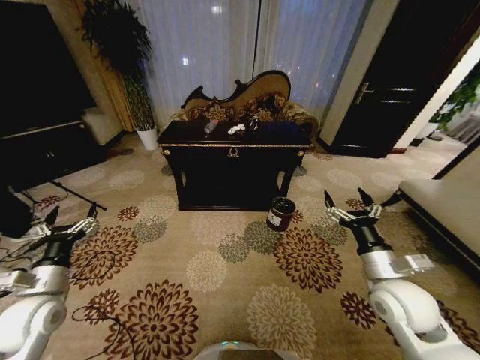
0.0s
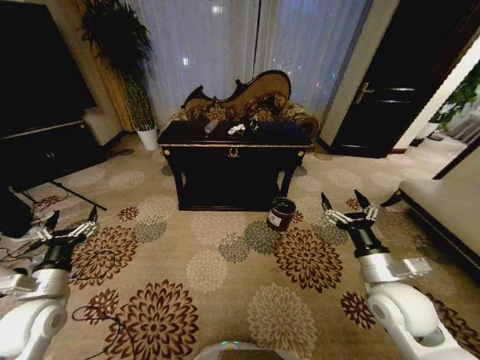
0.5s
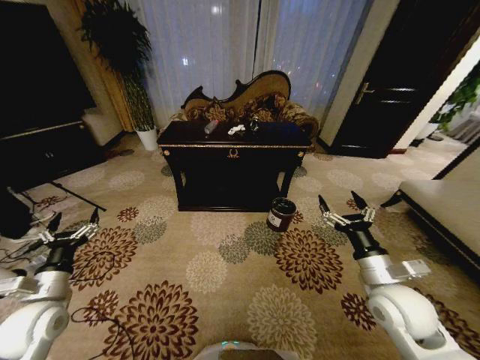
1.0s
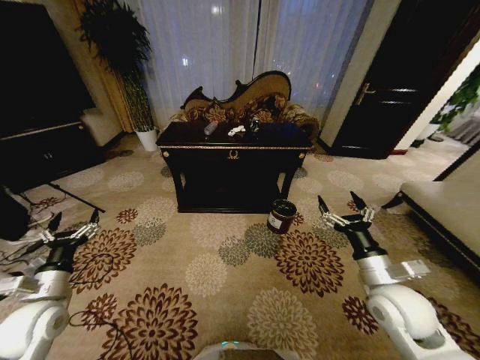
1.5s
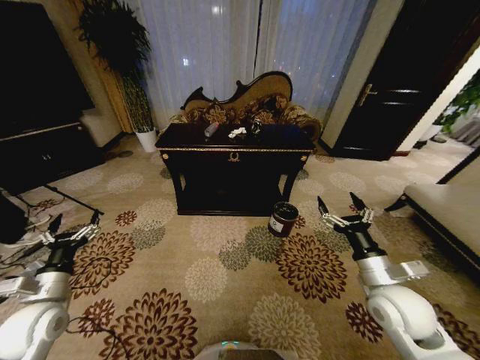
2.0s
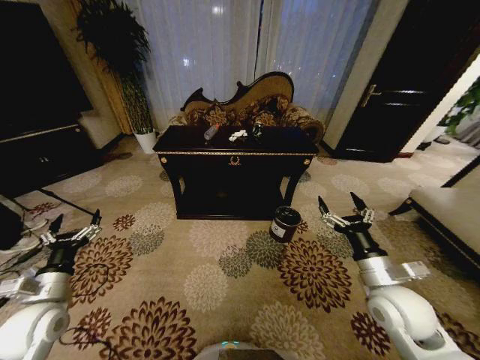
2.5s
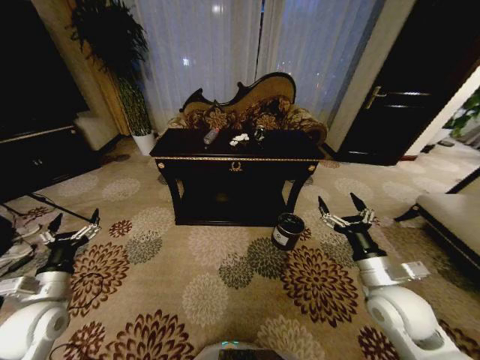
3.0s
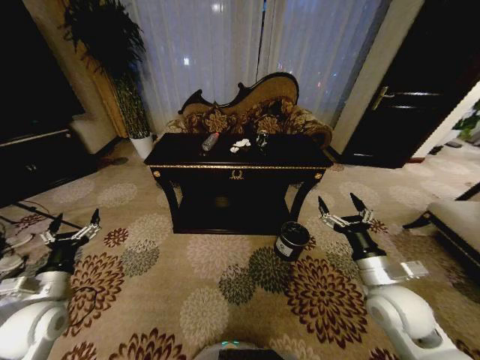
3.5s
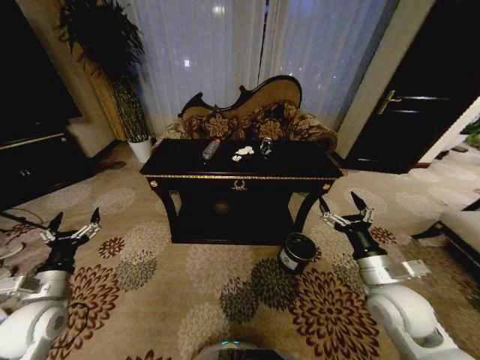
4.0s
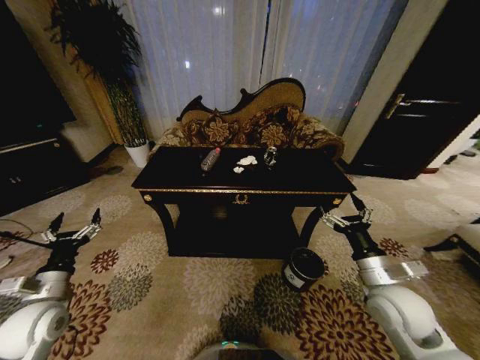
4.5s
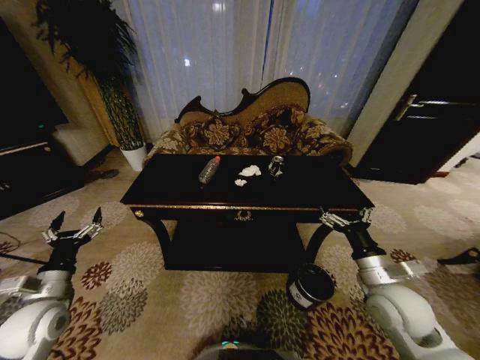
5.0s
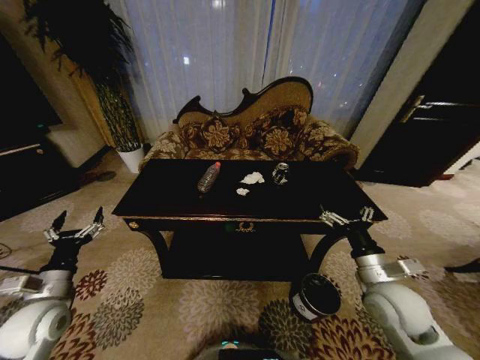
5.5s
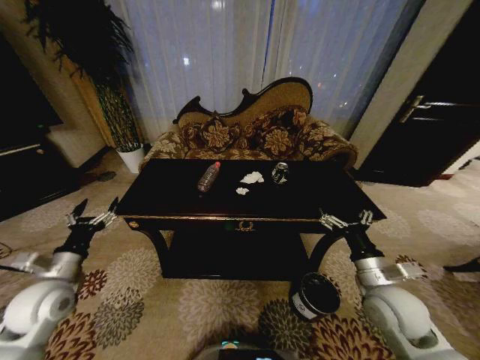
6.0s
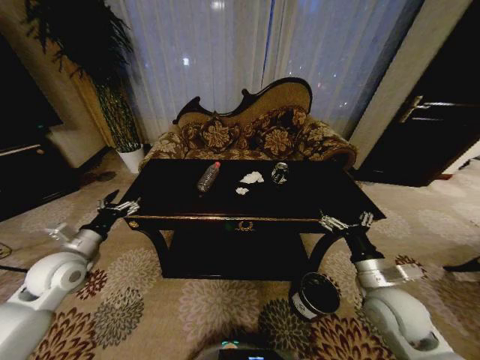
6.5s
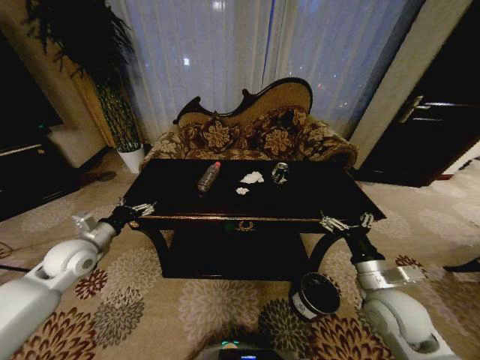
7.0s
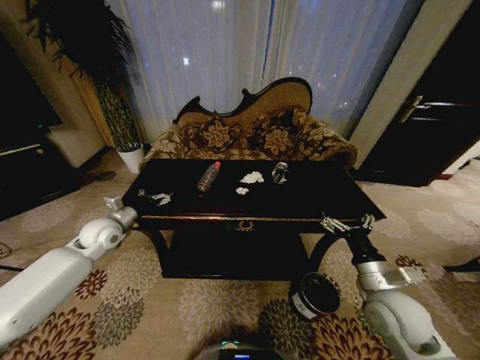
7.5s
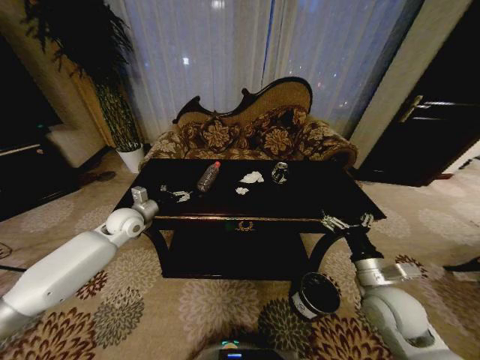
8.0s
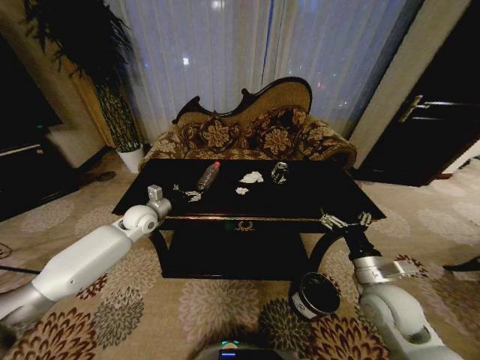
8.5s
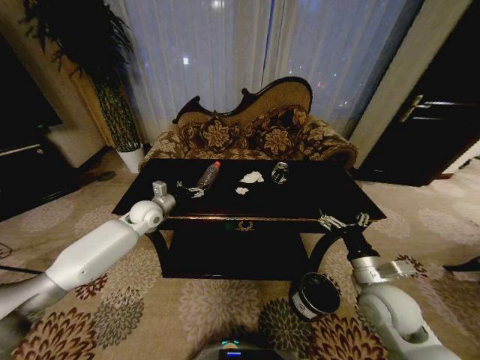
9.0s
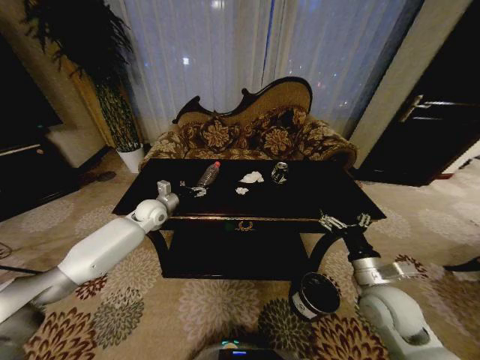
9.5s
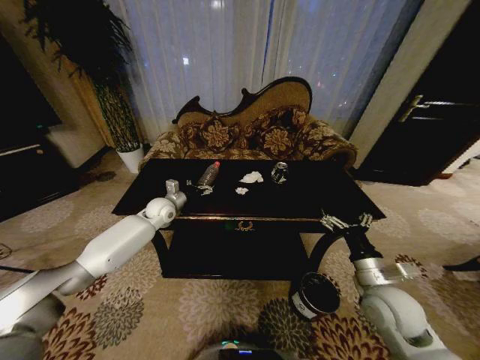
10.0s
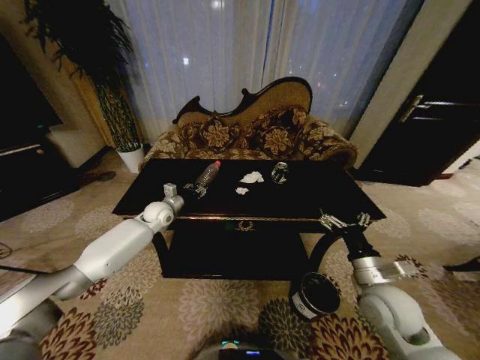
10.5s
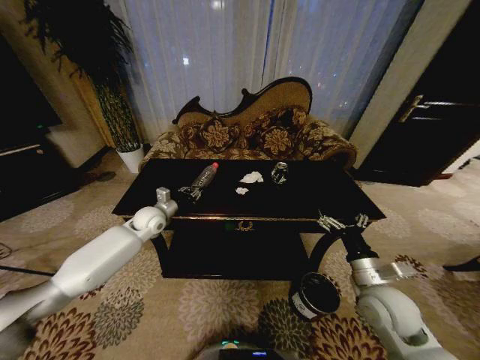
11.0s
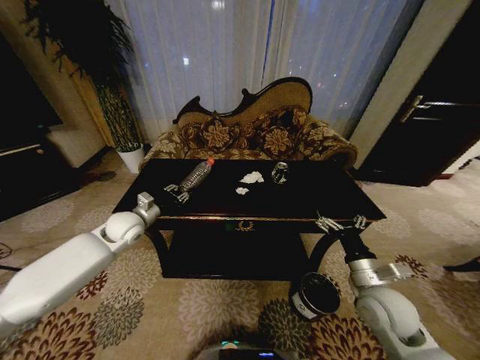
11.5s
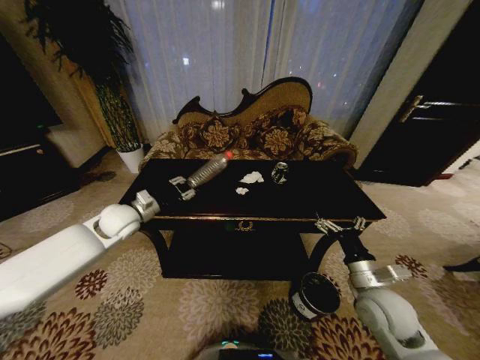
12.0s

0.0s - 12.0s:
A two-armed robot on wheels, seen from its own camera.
Task of the whole recording: Move to the front of the table and place the trash on the table into the trash bin.
6.0s - 8.0s: The left gripper shifts about 20 cm forward and to the right.
8.0s - 10.0s: The left gripper is displaced forward and to the right by approximately 10 cm.
10.0s - 12.0s: The left gripper is displaced backward, to the left and upward by roughly 15 cm, and closes up.

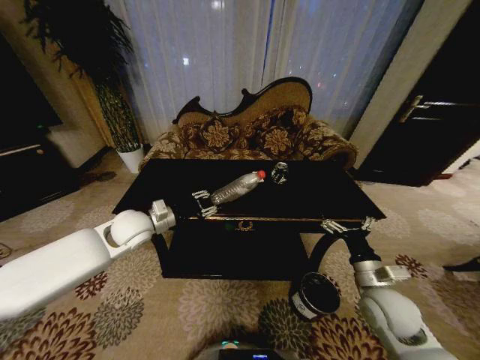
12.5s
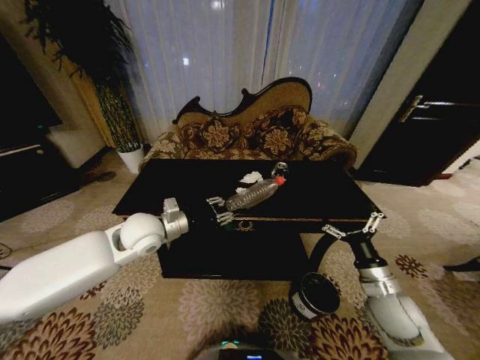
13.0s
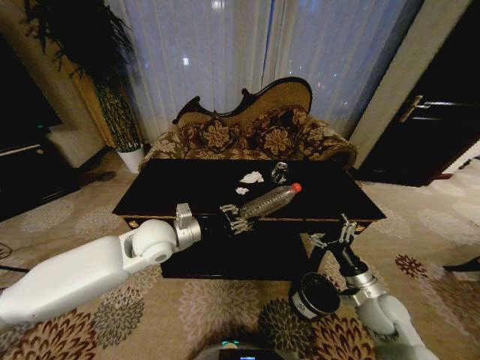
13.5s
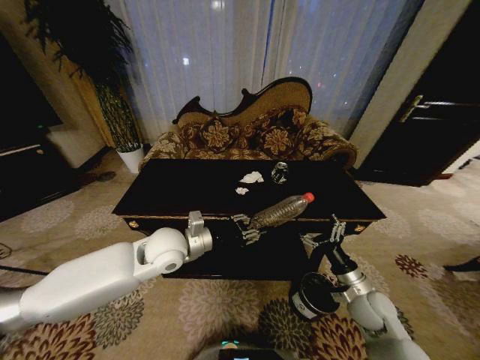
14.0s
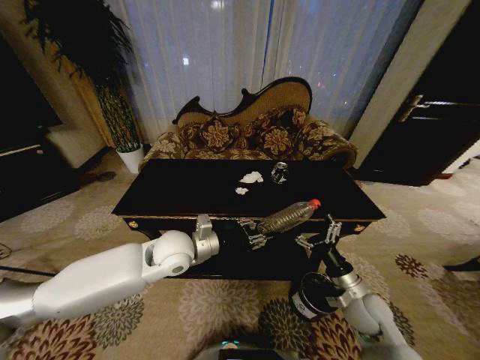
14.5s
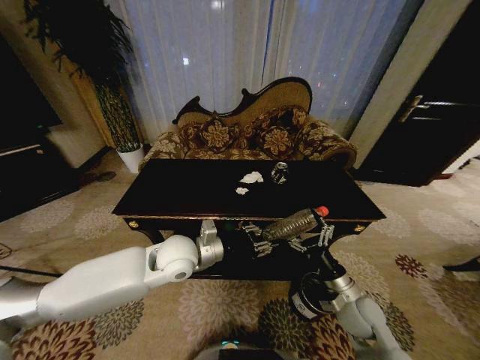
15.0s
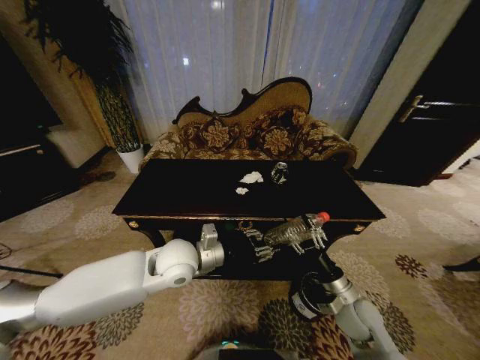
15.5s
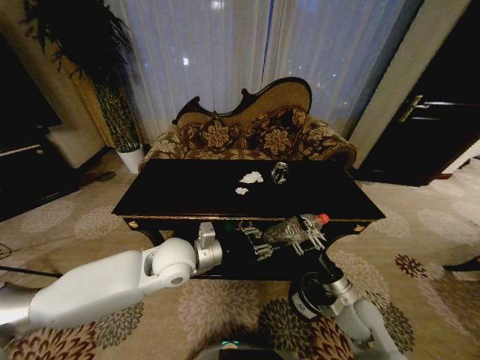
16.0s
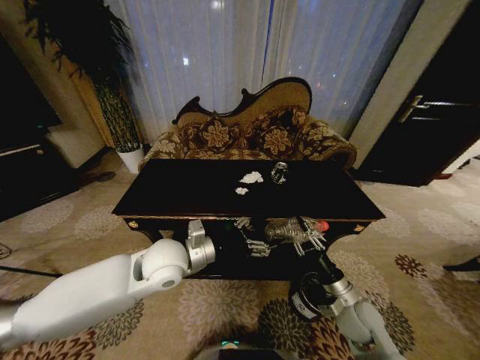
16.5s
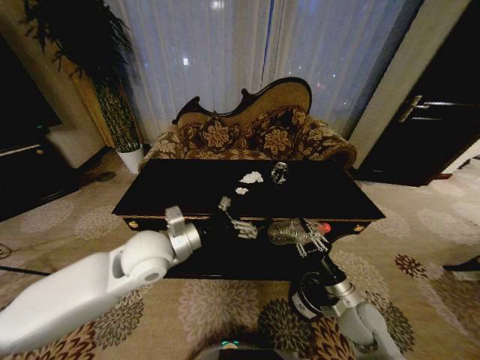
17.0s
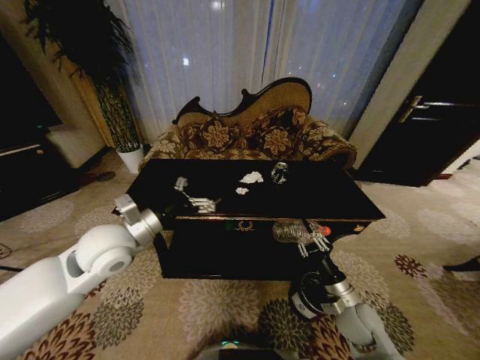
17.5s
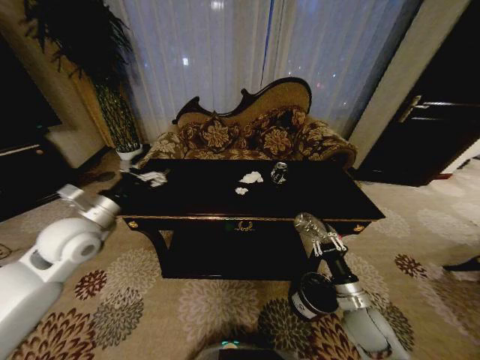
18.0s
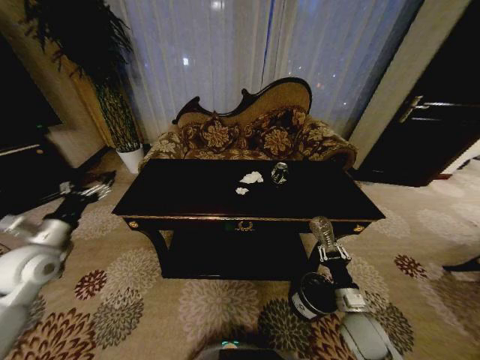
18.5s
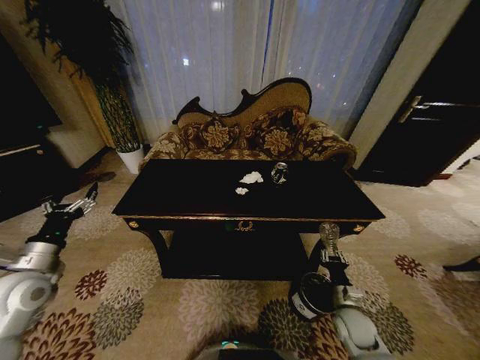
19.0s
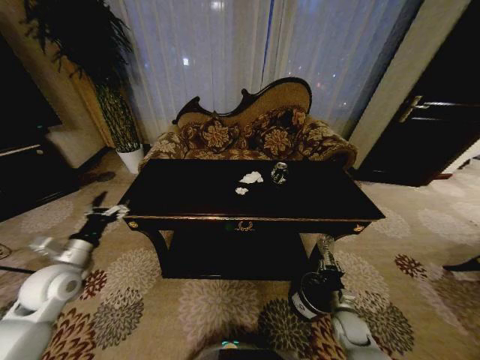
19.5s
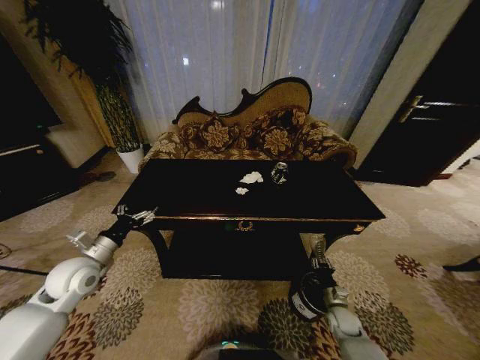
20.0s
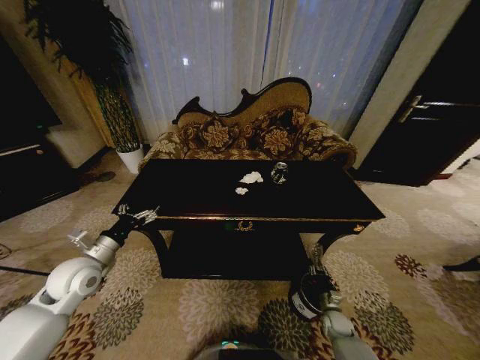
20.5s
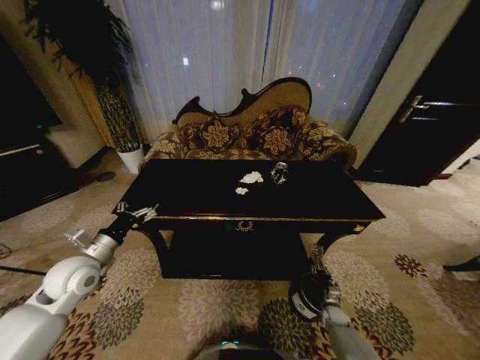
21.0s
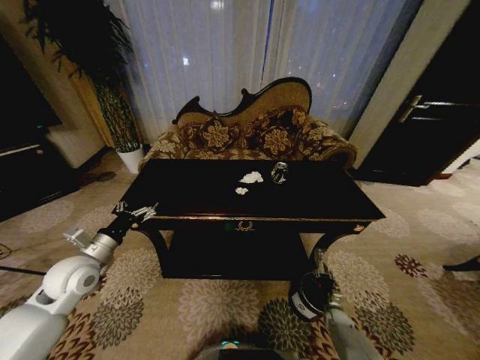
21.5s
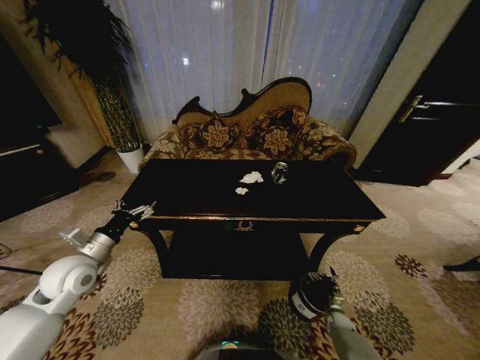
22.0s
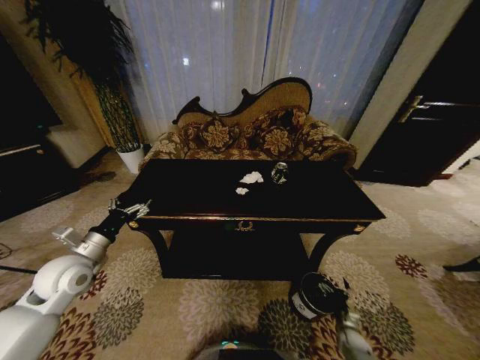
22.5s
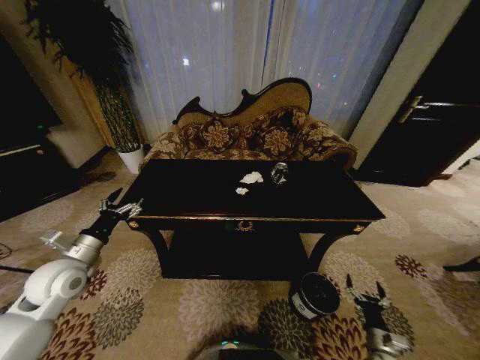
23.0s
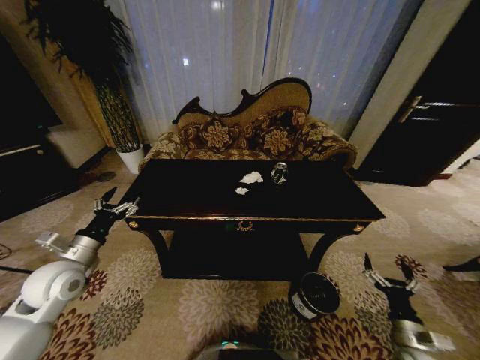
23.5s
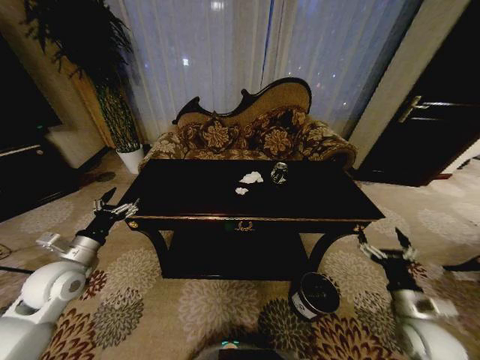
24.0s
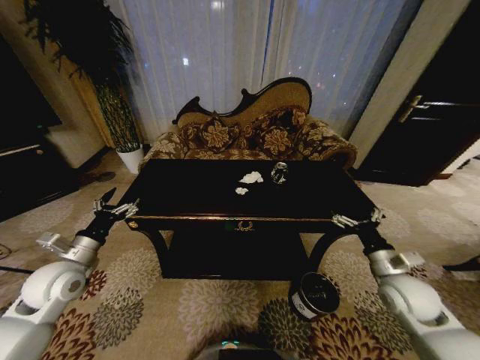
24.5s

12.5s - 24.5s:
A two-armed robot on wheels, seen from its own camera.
Task of the whole recording: Move to the front of the table and place the trash on the table into the trash bin.
12.5s - 14.5s: The left gripper is displaced to the right and backward by approximately 15 cm. Meanwhile the right gripper travels downward by some 5 cm.
14.5s - 16.5s: The left gripper opens up. Meanwhile the right gripper closes up.
16.5s - 18.5s: The right gripper moves approximately 5 cm. The left gripper shifts roughly 30 cm to the left, and opens its fingers.
18.5s - 20.5s: The right gripper heads downward, covering approximately 20 cm. The left gripper heads to the right and downward, covering some 10 cm.
20.5s - 22.5s: The right gripper shifts roughly 10 cm to the right, backward and downward, and opens up.
22.5s - 24.5s: The right gripper heads upward, covering some 35 cm.

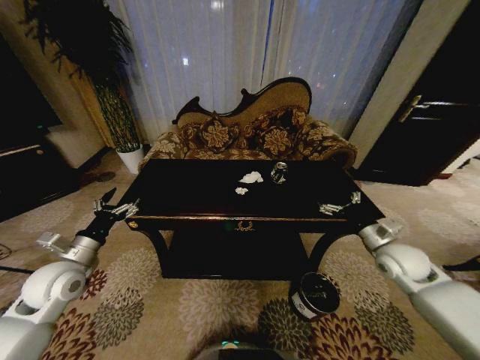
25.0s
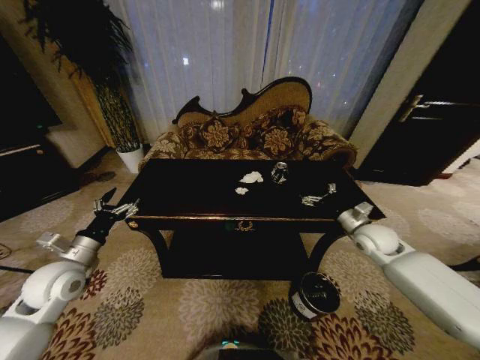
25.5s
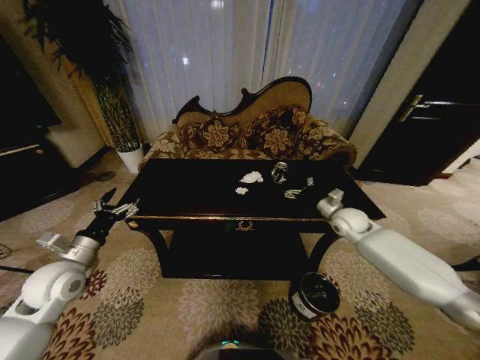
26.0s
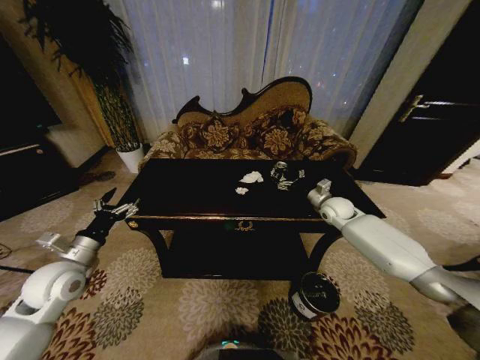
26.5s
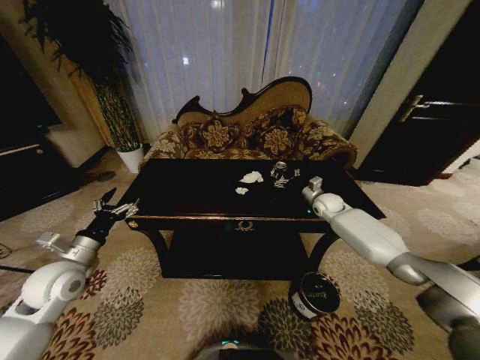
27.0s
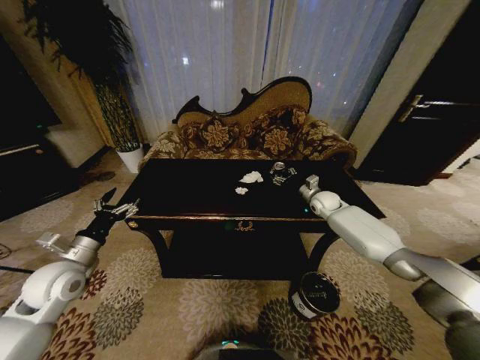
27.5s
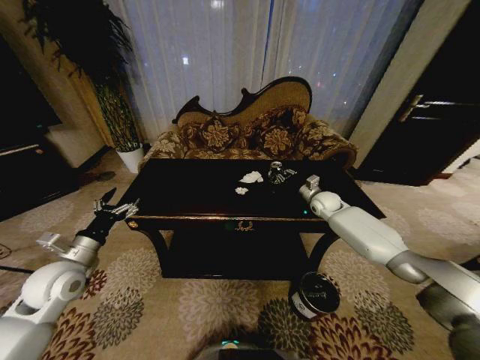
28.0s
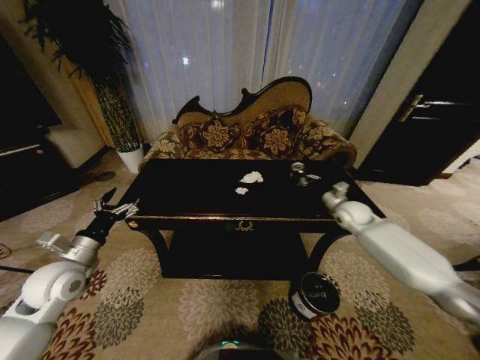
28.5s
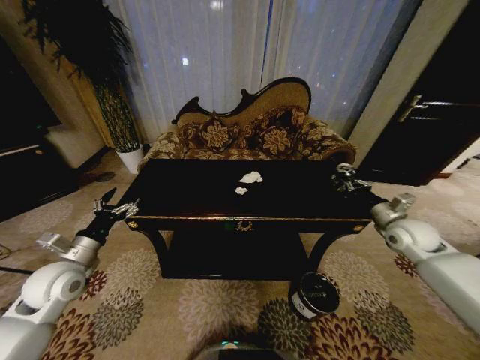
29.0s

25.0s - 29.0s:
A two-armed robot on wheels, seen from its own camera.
Task of the whole recording: Move to the front of the table and place the trash on the table into the trash bin.
25.0s - 27.0s: The right gripper shifts roughly 25 cm forward.
27.0s - 29.0s: The right gripper goes approximately 20 cm backward and to the right, and closes.
